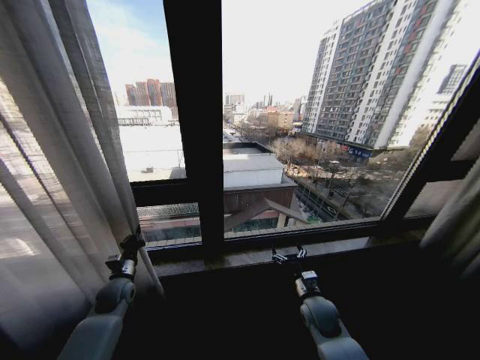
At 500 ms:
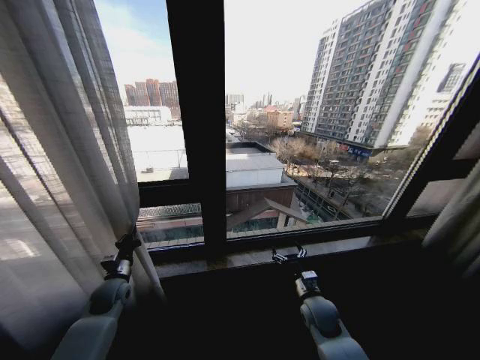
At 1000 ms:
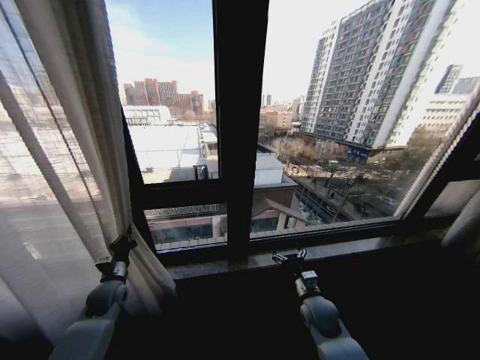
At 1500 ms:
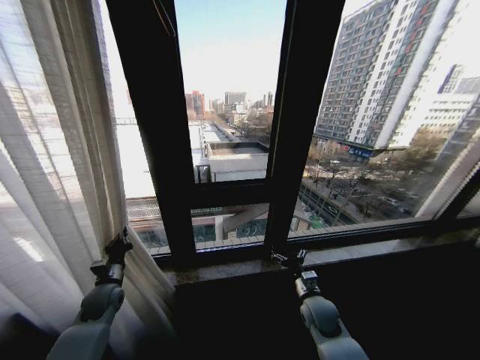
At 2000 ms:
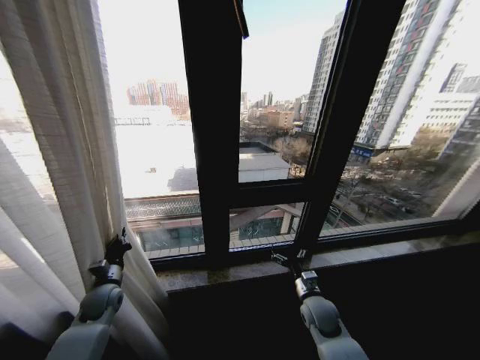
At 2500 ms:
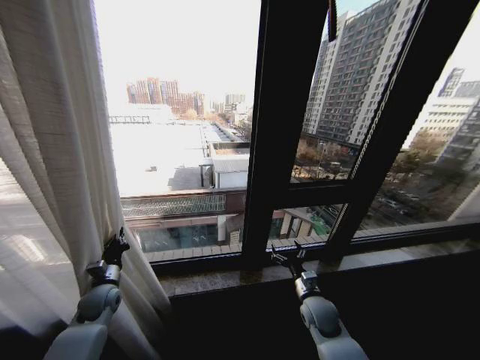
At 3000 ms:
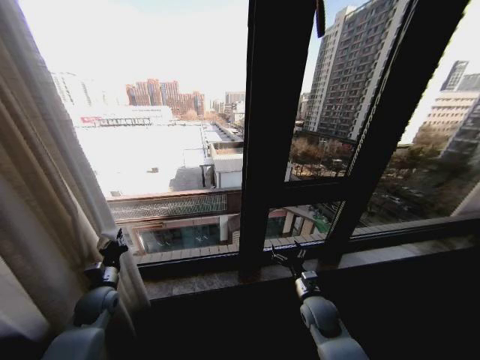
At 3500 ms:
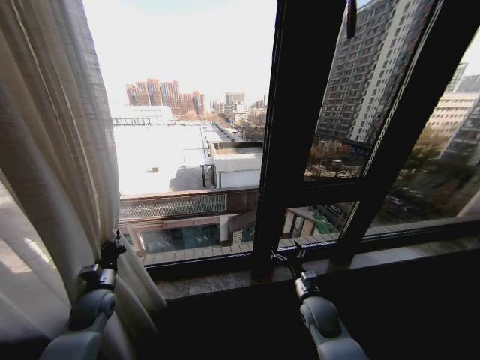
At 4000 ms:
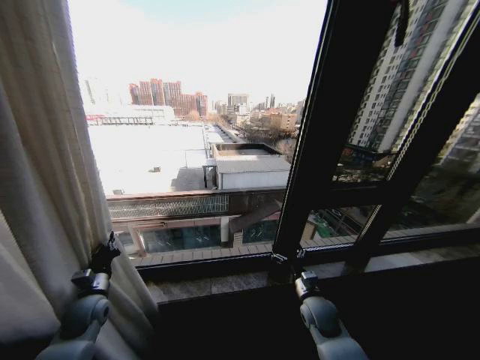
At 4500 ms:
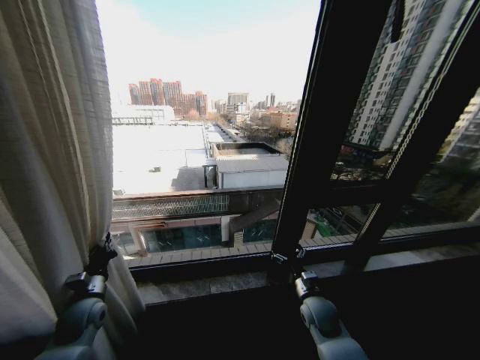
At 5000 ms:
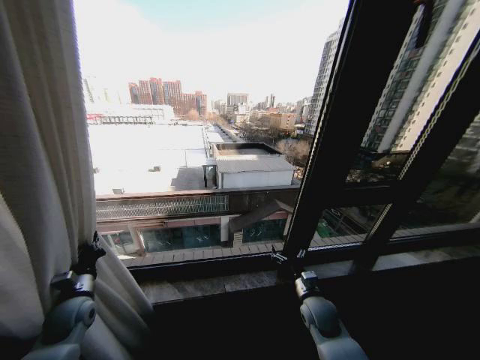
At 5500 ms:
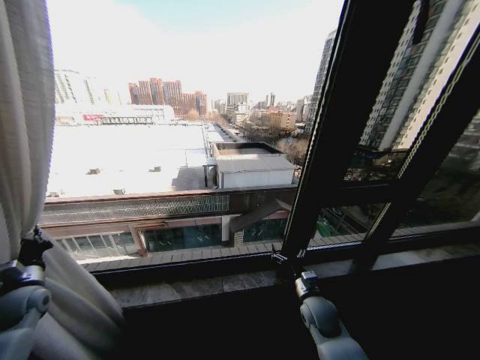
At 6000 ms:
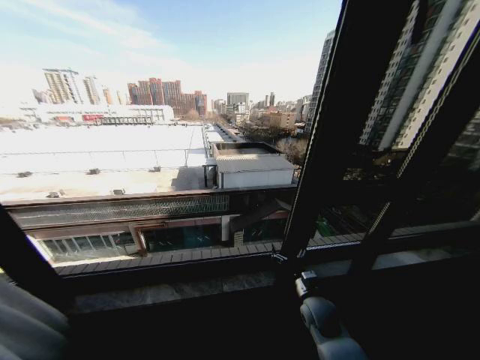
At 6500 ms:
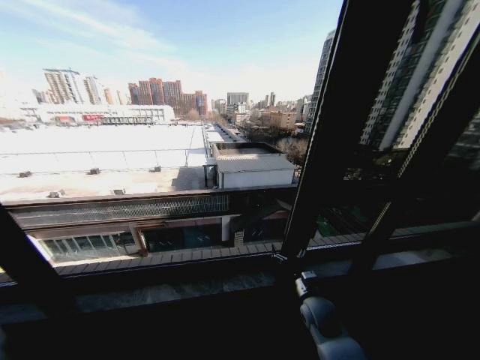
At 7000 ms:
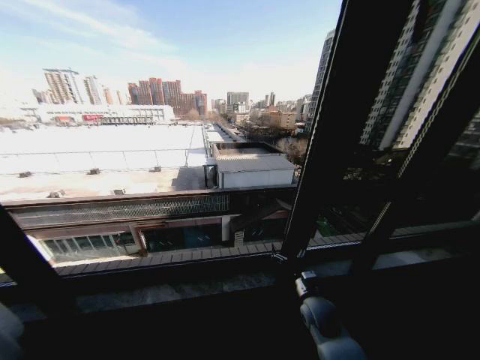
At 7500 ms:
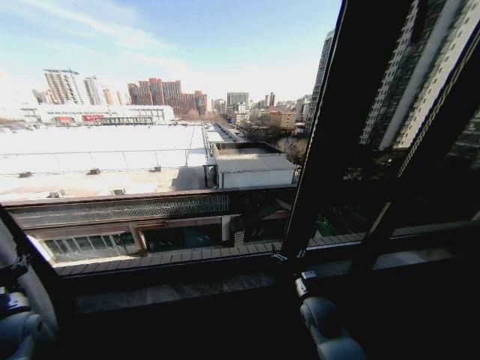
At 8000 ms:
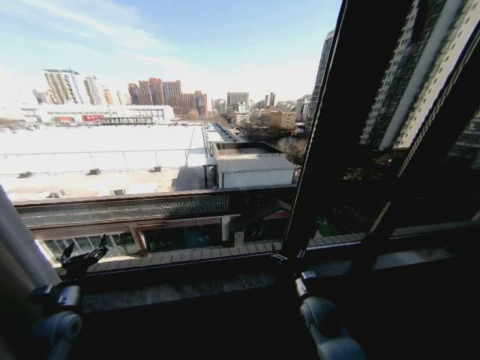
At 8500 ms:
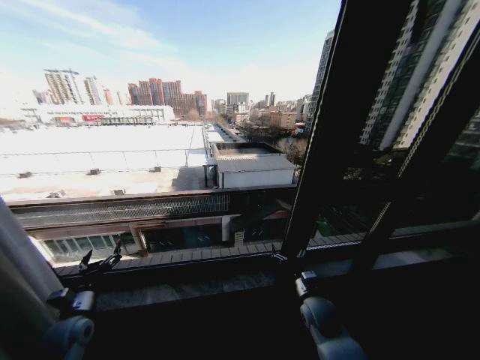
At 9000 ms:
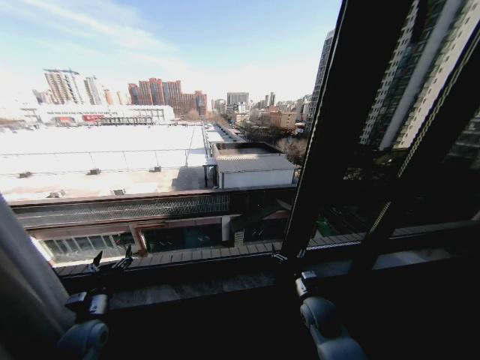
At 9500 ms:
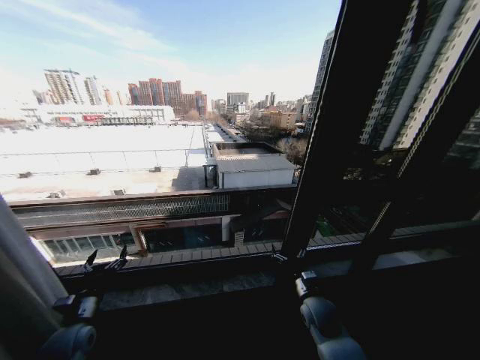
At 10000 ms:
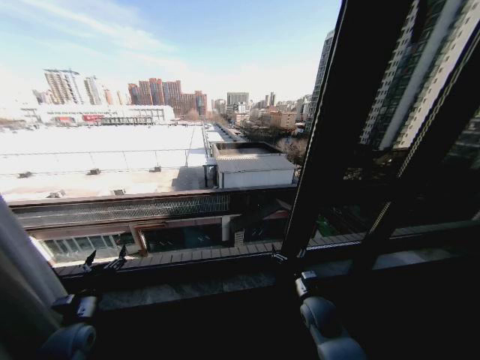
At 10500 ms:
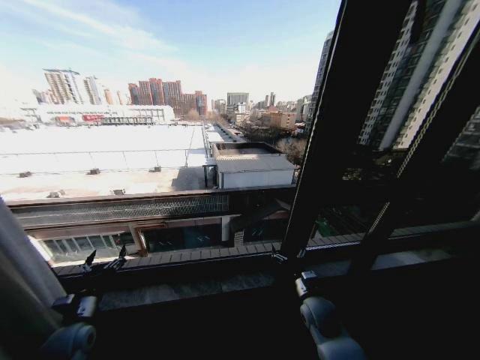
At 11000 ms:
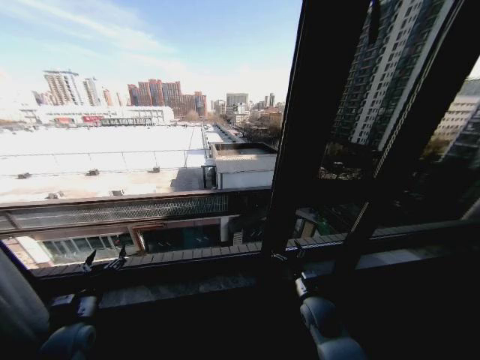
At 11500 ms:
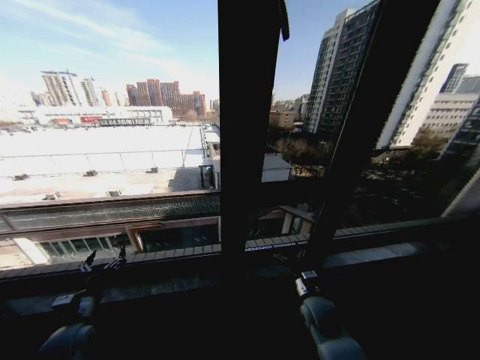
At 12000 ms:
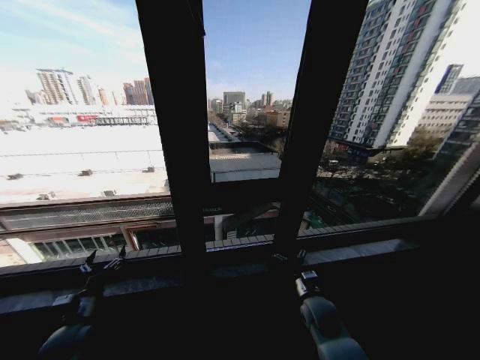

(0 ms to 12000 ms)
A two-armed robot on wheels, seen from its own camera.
Task of the whole recording: Open the curtains by pulling them apart, changing their state from closed to fully open.
4000 ms - 6000 ms: The left gripper goes approximately 30 cm to the left.
6000 ms - 8000 ms: The left gripper is displaced to the right by approximately 25 cm, and opens up.

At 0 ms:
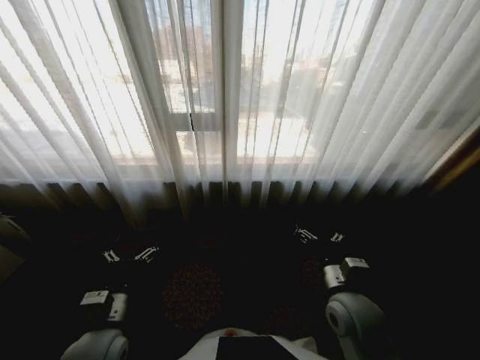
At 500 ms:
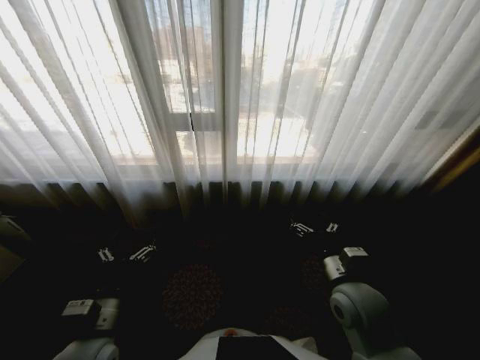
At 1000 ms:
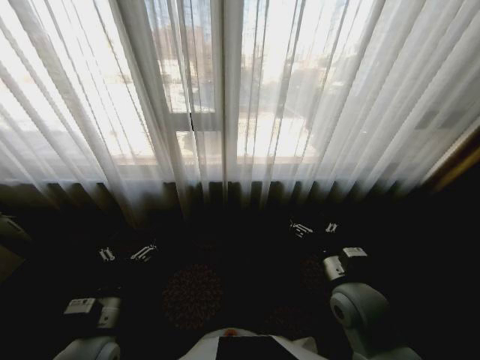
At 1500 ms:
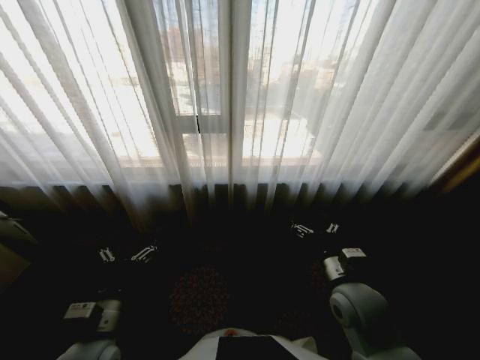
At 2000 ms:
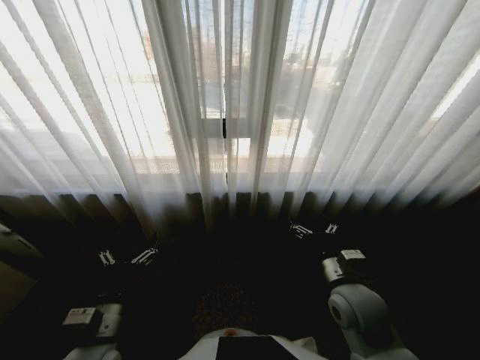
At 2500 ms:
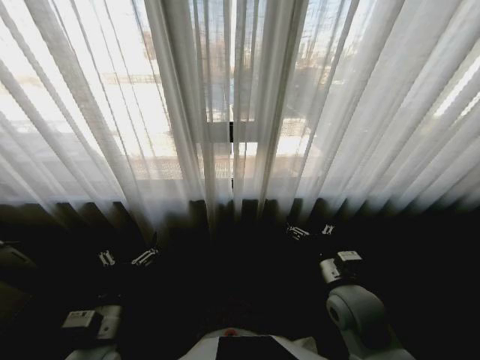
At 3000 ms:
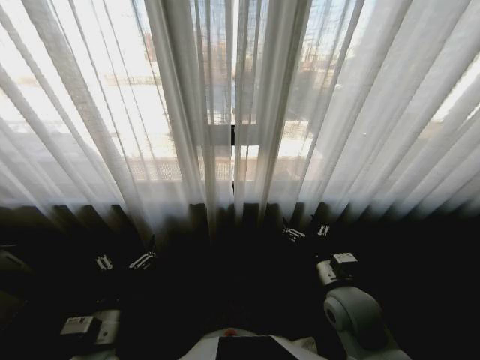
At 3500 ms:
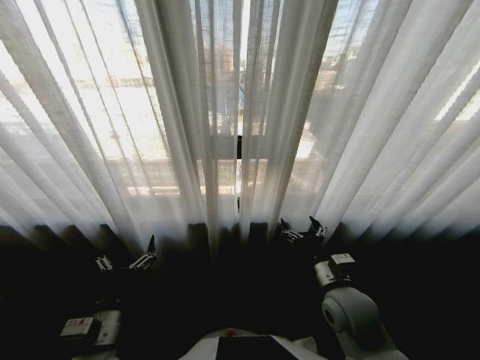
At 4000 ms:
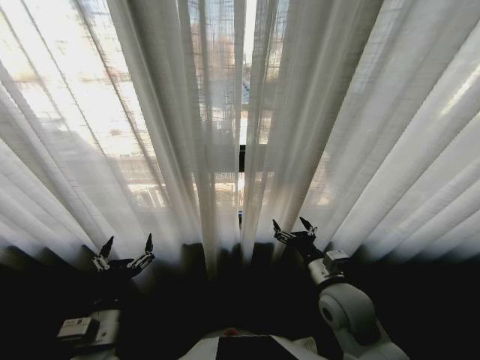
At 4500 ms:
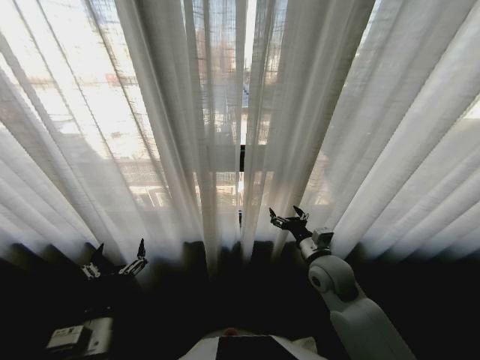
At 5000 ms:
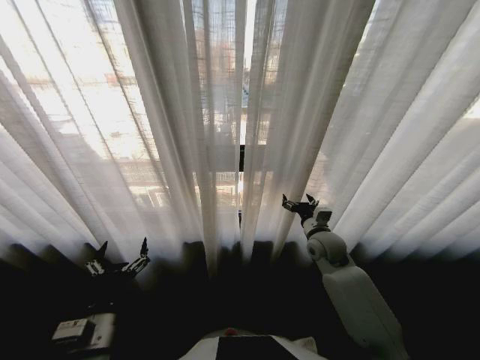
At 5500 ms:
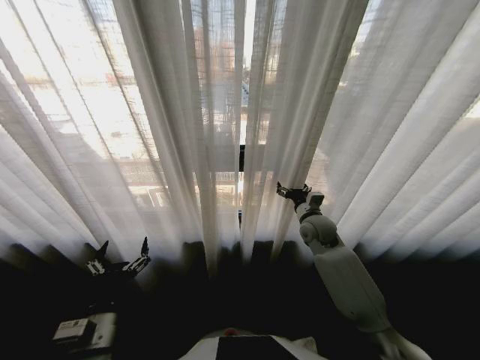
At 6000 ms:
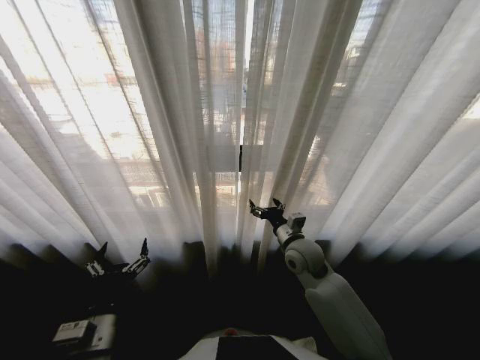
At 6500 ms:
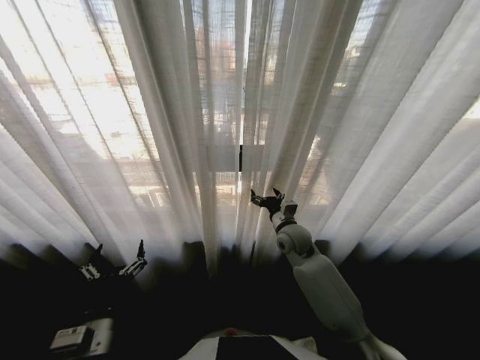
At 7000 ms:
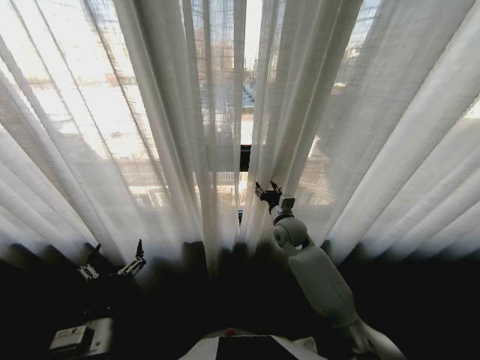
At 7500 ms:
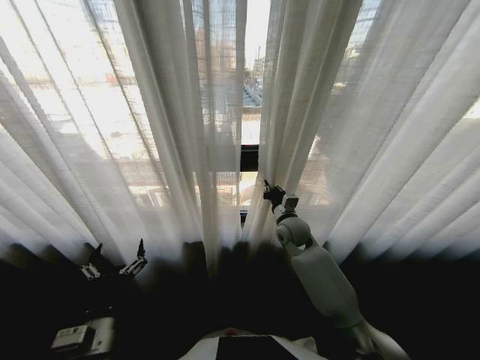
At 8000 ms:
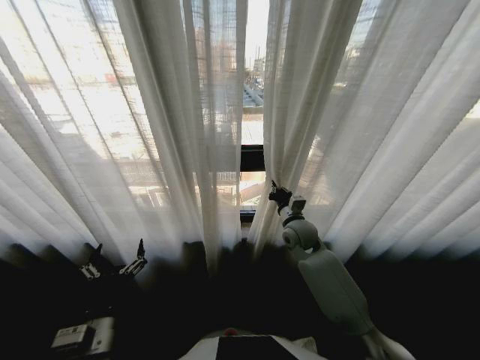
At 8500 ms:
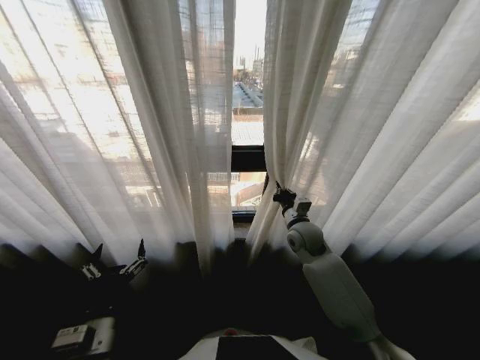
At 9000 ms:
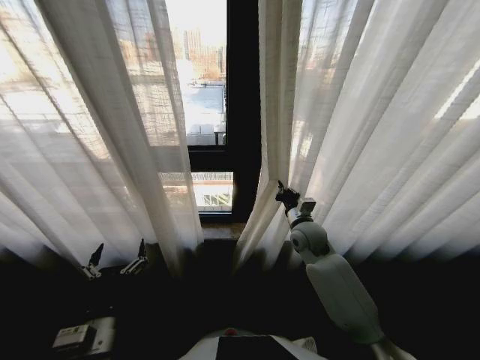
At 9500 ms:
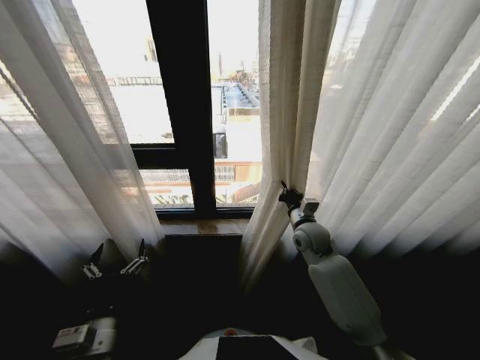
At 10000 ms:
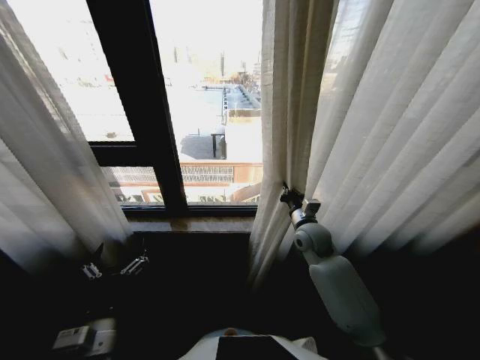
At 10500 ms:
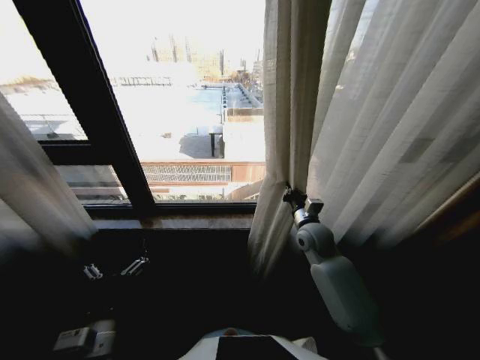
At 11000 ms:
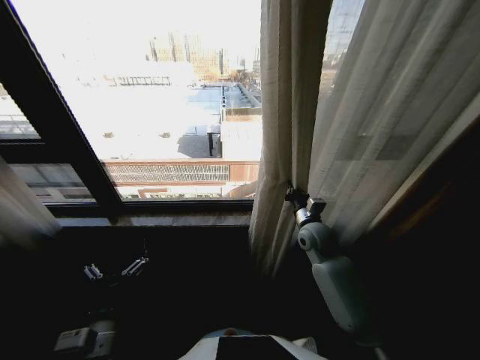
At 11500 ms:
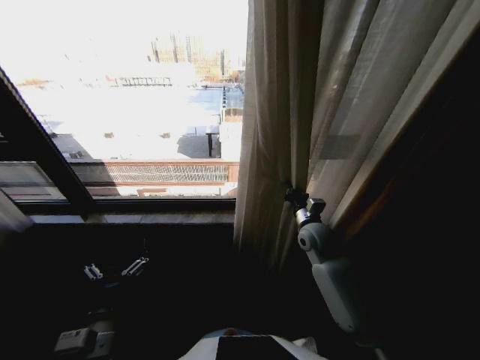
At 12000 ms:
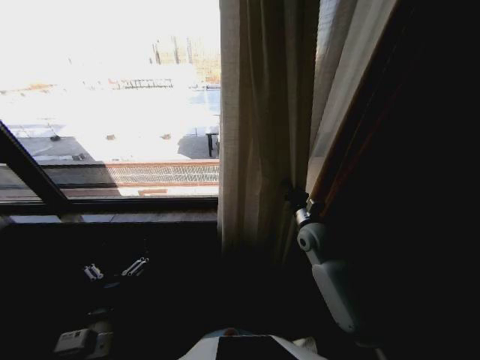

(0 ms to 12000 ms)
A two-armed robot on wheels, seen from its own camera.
Task of the whole recording: Open the curtains by pulling them apart, changing their state from closed to fully open.
4000 ms - 6000 ms: The right gripper shifts some 10 cm forward.
6000 ms - 8000 ms: The right gripper is displaced forward by approximately 10 cm, and closes up.

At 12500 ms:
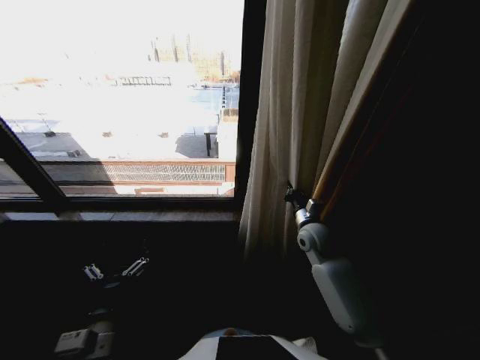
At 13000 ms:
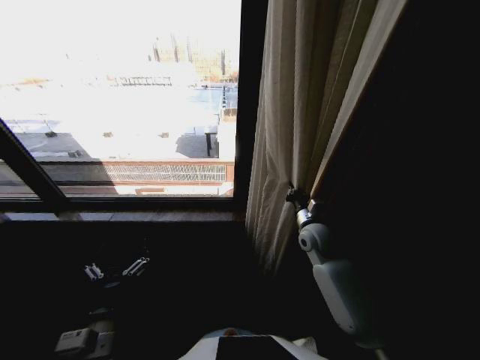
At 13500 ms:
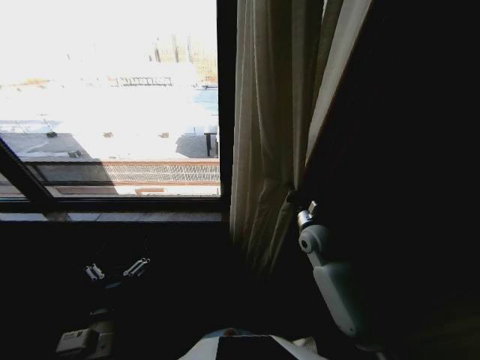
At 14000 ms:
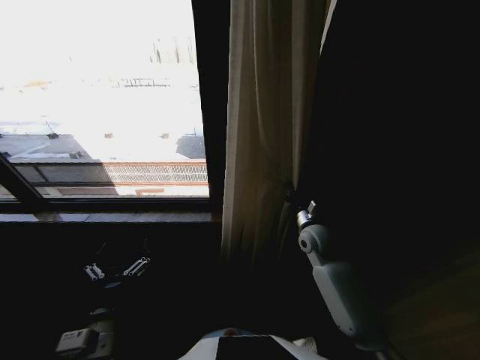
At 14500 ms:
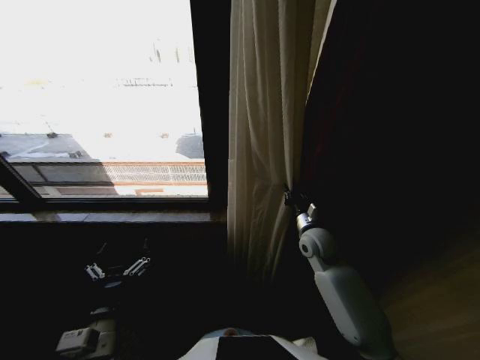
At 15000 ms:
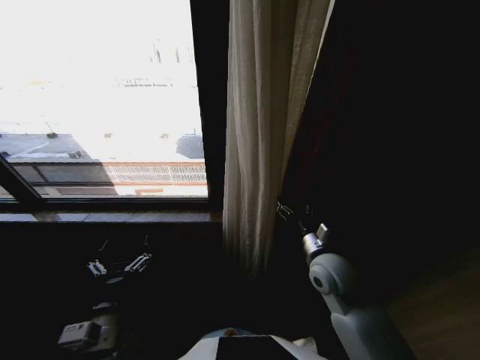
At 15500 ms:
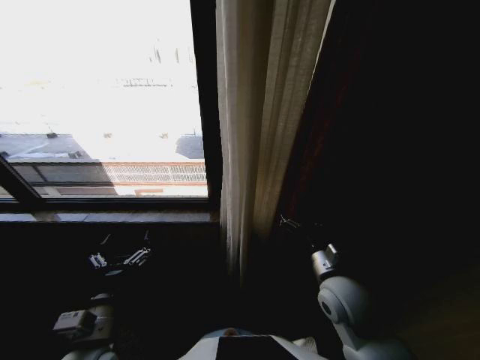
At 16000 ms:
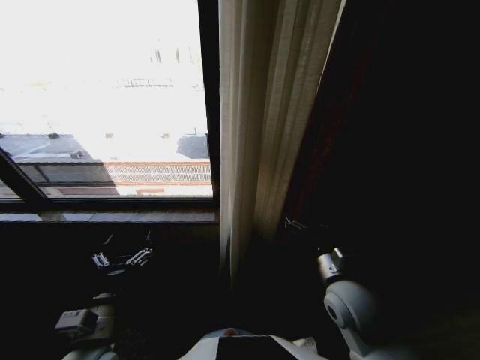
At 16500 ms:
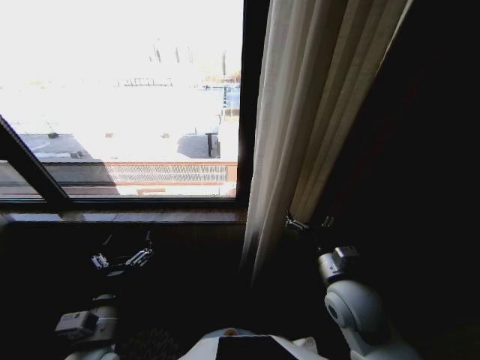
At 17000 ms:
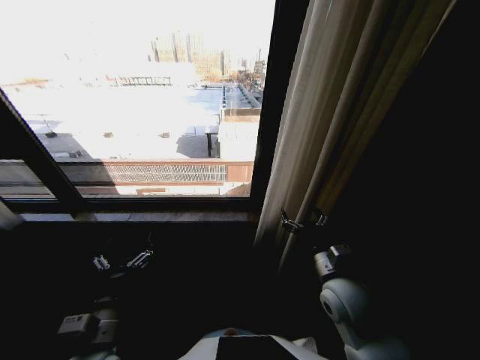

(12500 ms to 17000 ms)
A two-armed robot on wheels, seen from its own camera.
Task of the whole recording: Open the curtains by pulling them apart, changing their state from closed to fully open.
14500 ms - 17000 ms: The right gripper shifts some 15 cm backward, and opens its fingers.
